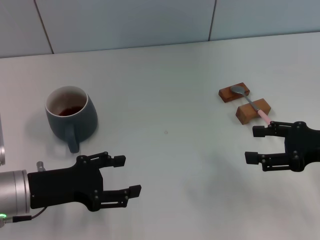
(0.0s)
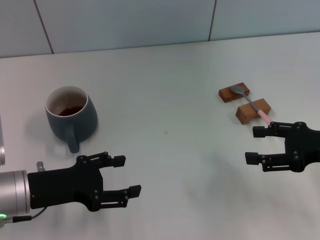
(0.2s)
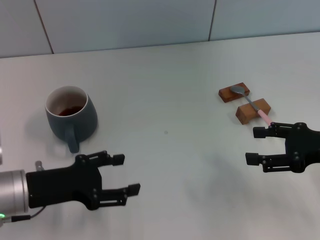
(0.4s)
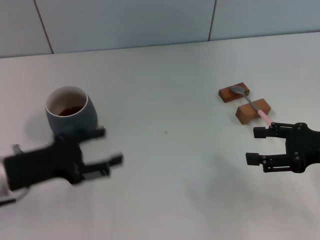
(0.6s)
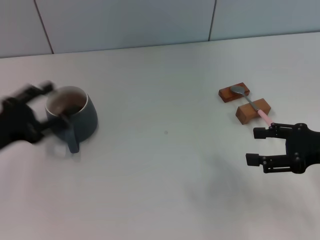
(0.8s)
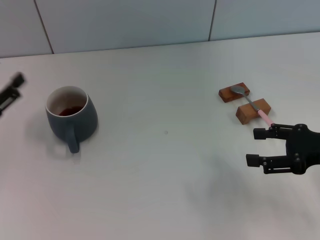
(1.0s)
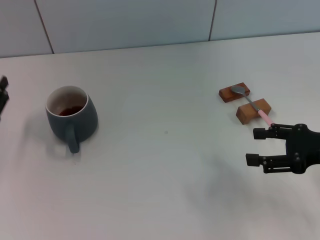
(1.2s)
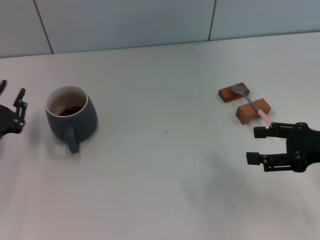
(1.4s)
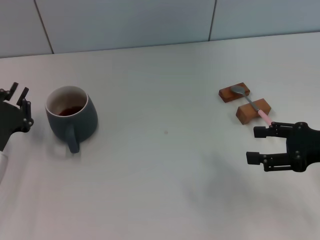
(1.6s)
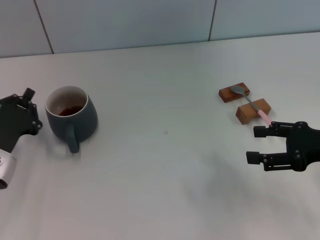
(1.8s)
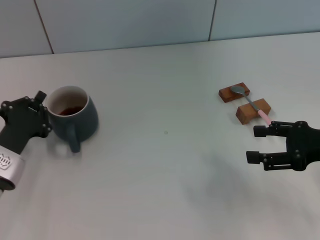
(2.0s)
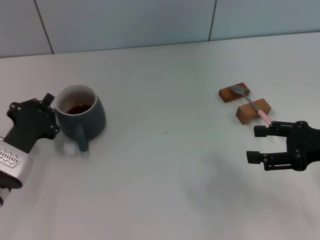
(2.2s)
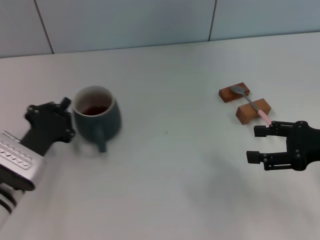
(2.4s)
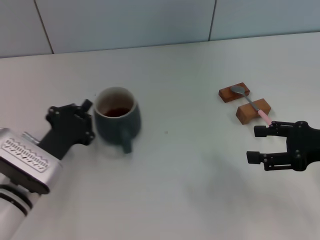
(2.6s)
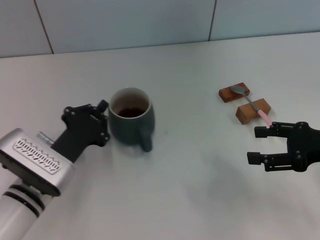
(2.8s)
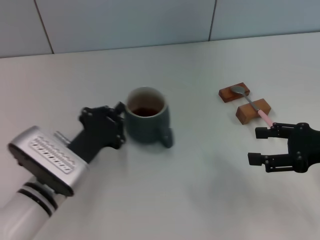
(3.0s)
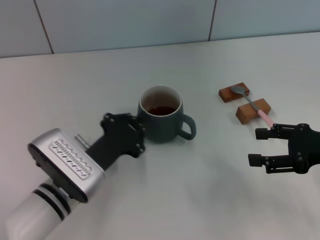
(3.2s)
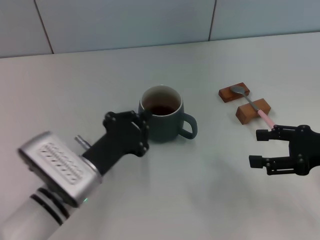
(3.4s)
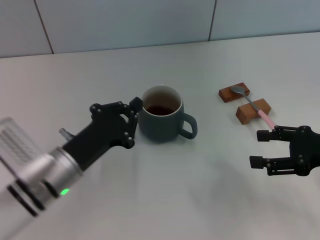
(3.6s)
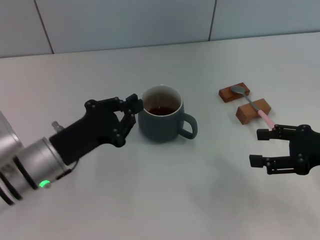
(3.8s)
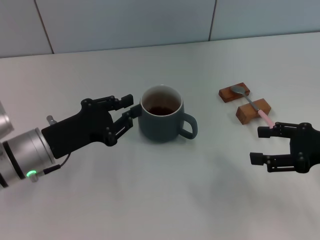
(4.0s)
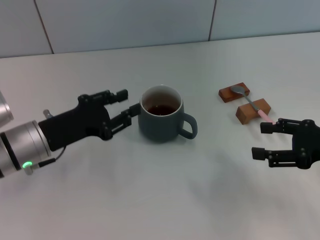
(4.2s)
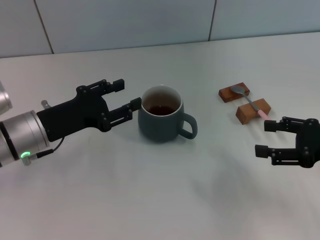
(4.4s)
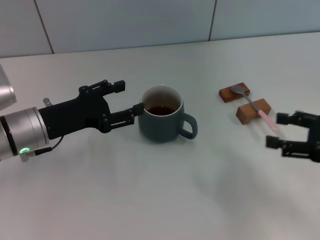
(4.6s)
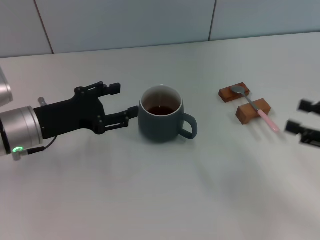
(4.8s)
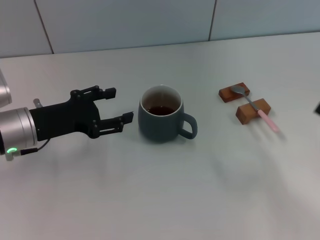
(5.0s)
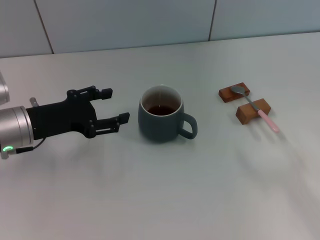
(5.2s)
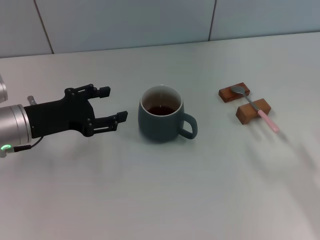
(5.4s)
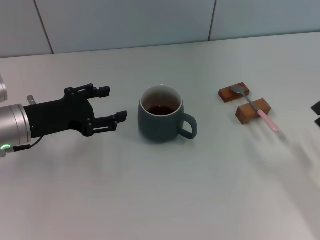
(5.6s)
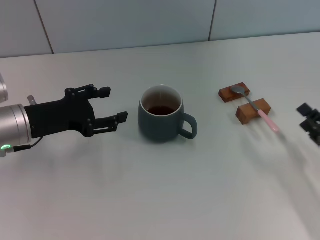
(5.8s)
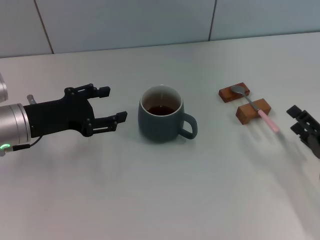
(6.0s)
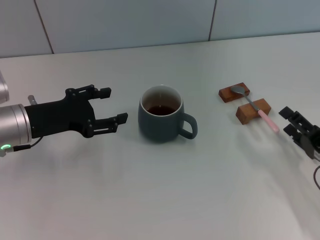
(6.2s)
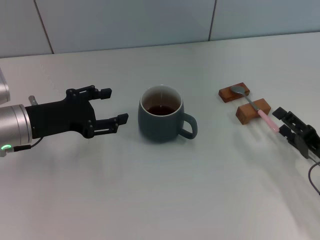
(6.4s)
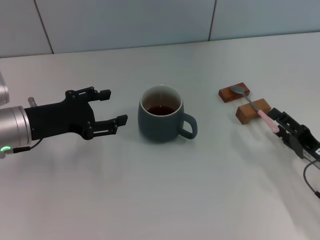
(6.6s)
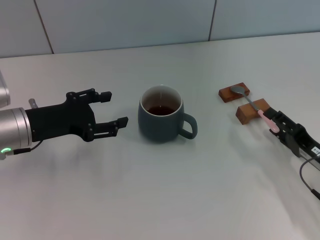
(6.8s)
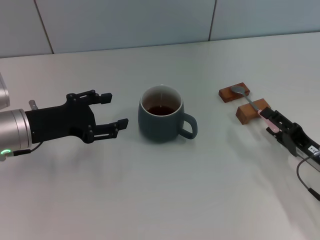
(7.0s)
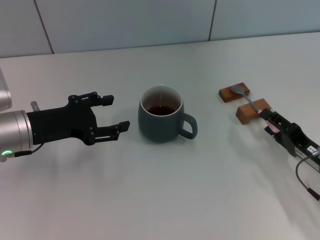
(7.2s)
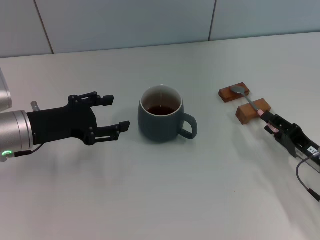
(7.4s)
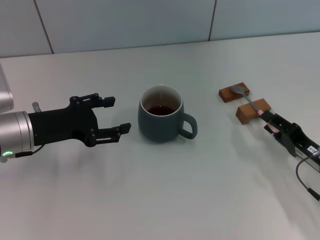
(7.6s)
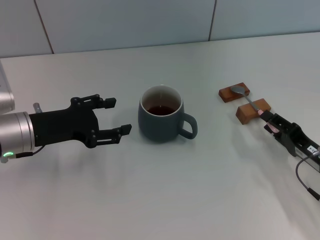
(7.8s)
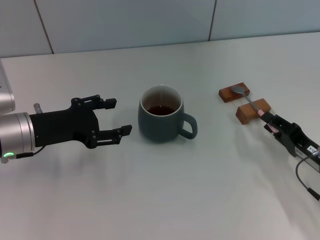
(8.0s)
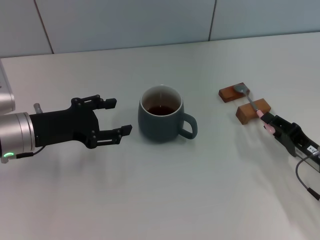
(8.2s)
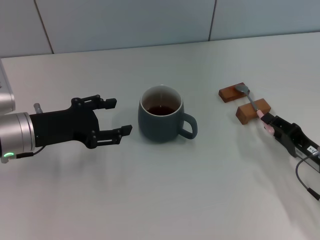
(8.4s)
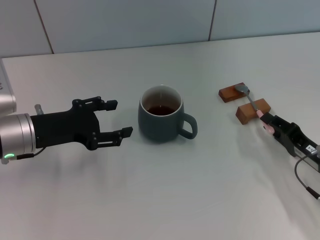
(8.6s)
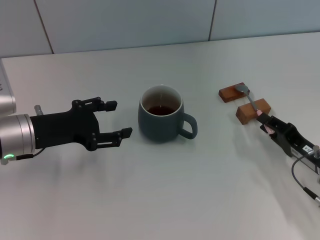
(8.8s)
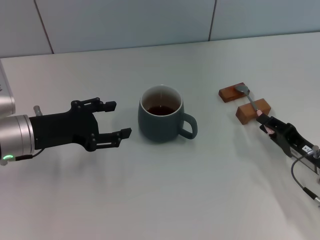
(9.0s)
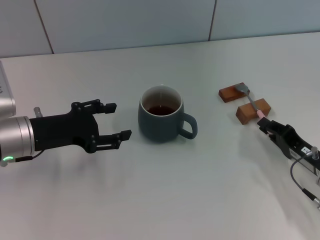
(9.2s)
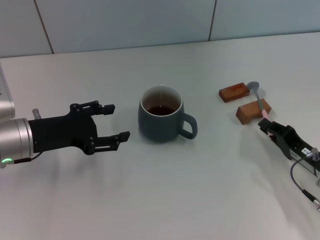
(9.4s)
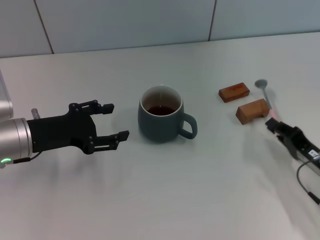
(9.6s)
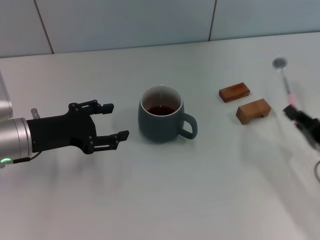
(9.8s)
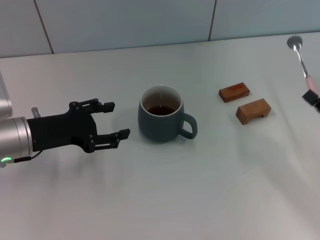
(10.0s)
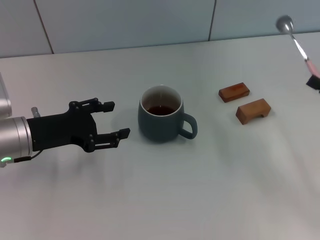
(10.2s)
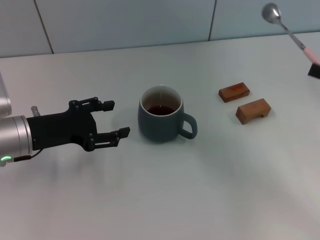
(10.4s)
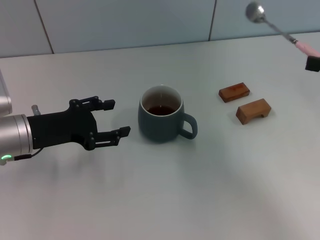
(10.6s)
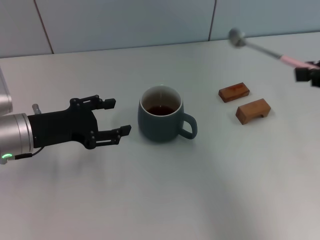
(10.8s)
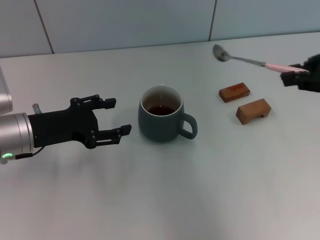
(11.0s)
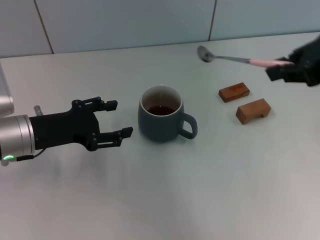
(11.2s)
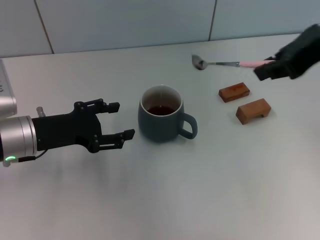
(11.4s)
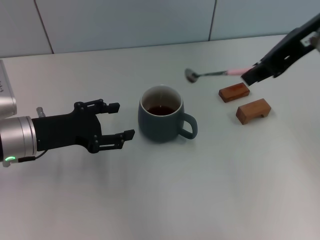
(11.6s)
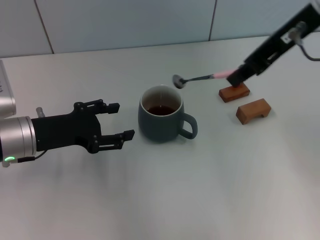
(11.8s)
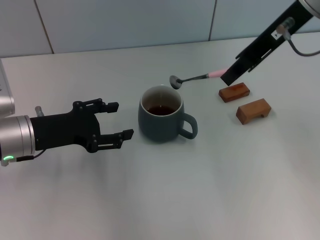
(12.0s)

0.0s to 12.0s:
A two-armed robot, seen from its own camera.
Task of the whole recording: Move the grey cup to the center, lift the pink spoon, stir it three times in the cup, and put the spoon into the cup.
Step, 0.0s to 5.0s: Move the cup with coffee to the center of view with the left gripper.
Step, 5.2s to 9.6s: Pick up the spoon with the right gripper.
0.0s to 1.6s: The left gripper is displaced to the left by some 5 cm, and closes its fingers.
1.6s to 3.0s: The left gripper shifts about 10 cm to the right, and closes its fingers.
3.0s to 4.4s: The left gripper heads upward, forward and to the left, covering about 10 cm, and opens its fingers.
4.4s to 6.0s: The right gripper shifts approximately 10 cm downward.
6.0s to 7.6s: There are only small adjustments of the grippers.
7.6s to 9.0s: The two grippers keep their place.
9.0s to 10.4s: The right gripper goes about 15 cm upward and to the right, and closes up.
10.4s to 12.0s: The right gripper goes roughly 25 cm to the left, upward and forward.

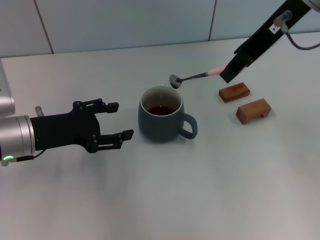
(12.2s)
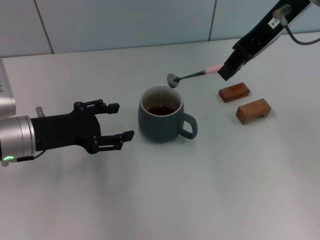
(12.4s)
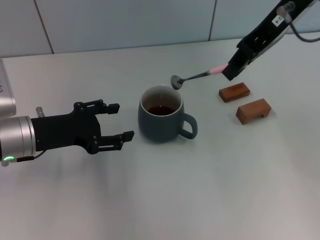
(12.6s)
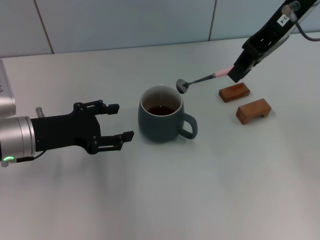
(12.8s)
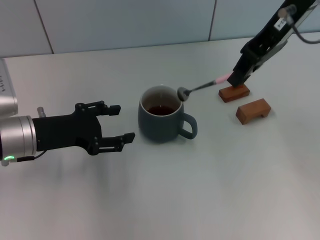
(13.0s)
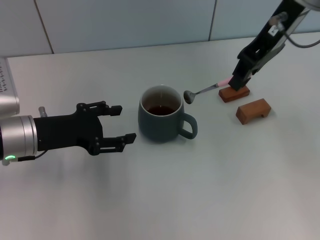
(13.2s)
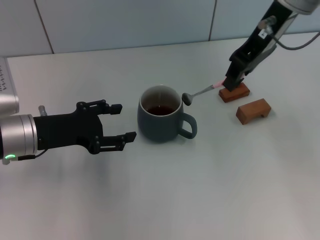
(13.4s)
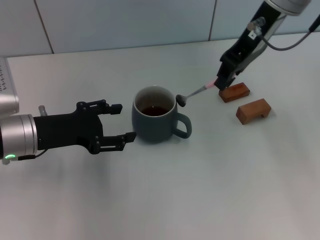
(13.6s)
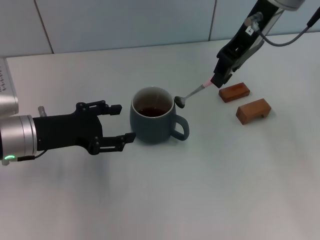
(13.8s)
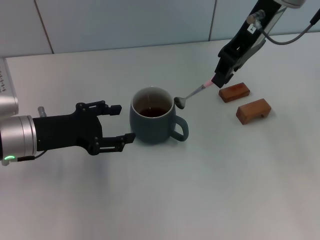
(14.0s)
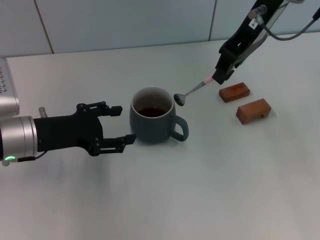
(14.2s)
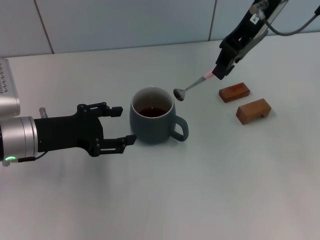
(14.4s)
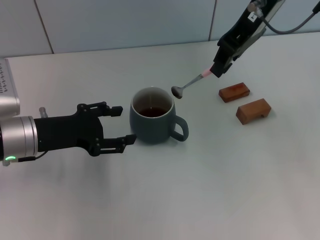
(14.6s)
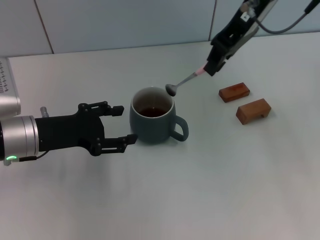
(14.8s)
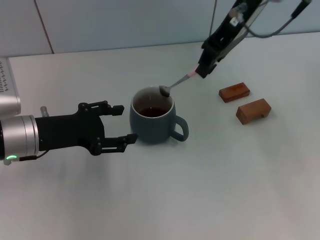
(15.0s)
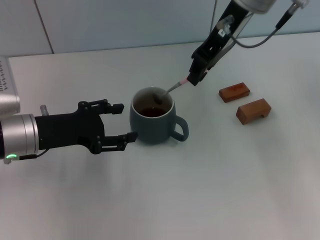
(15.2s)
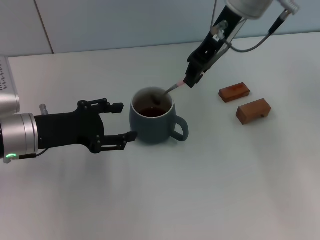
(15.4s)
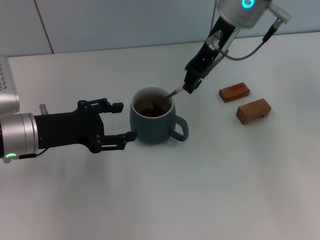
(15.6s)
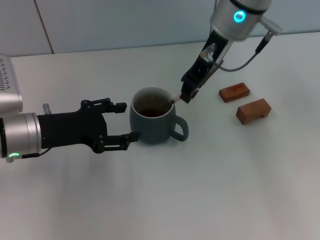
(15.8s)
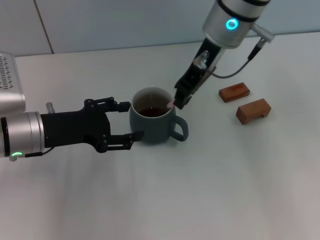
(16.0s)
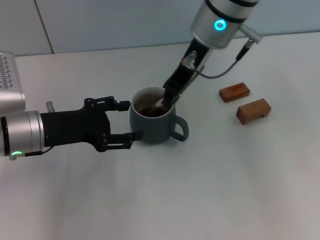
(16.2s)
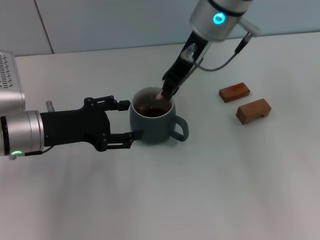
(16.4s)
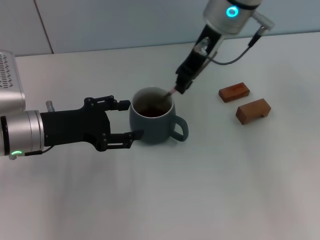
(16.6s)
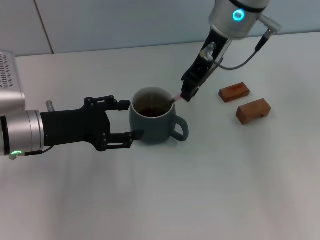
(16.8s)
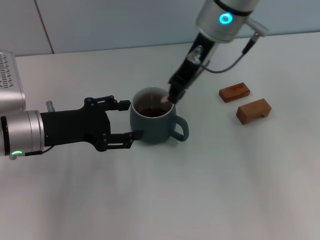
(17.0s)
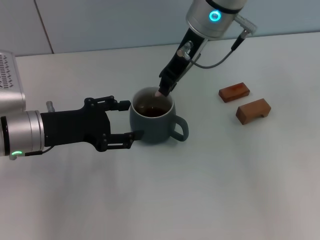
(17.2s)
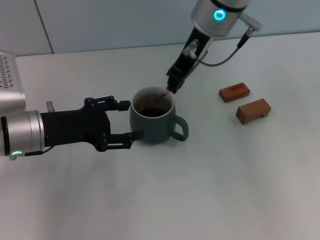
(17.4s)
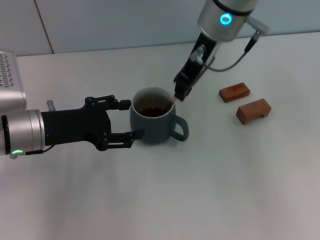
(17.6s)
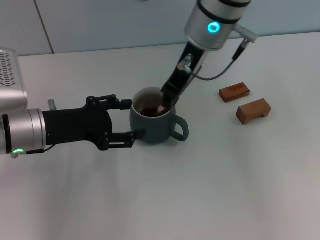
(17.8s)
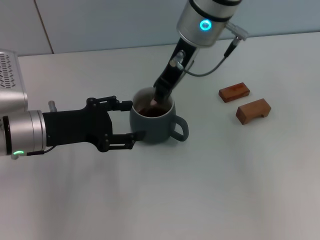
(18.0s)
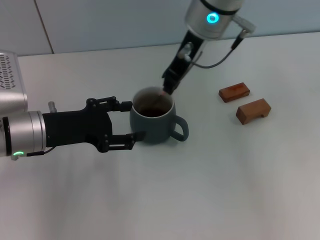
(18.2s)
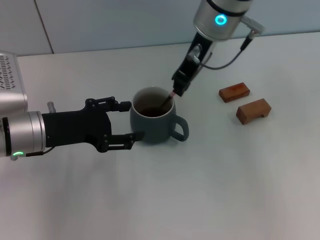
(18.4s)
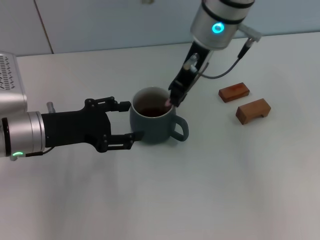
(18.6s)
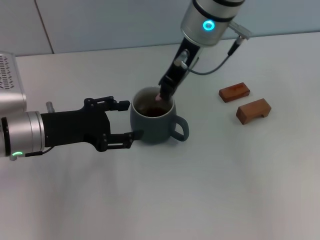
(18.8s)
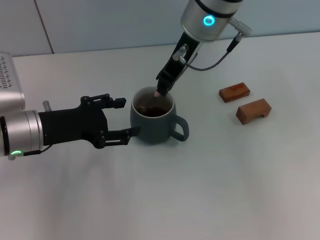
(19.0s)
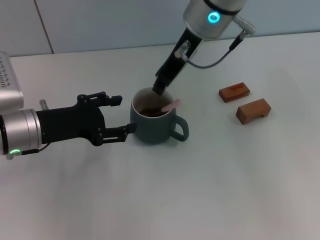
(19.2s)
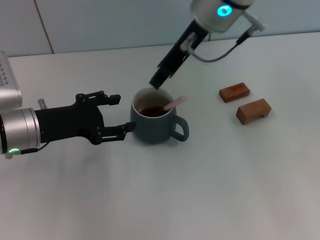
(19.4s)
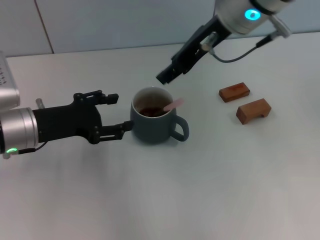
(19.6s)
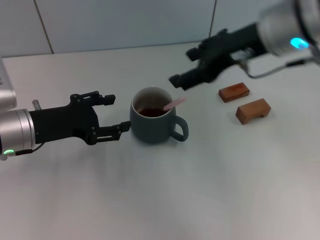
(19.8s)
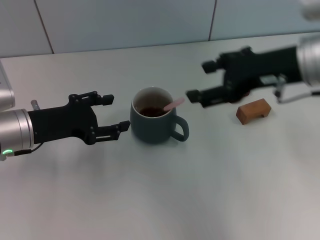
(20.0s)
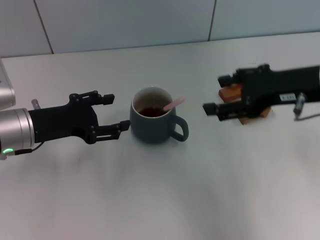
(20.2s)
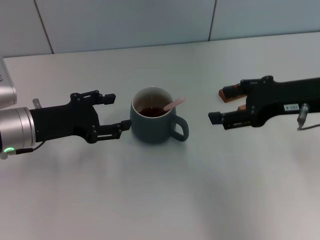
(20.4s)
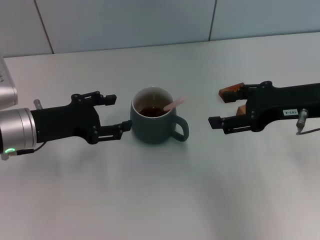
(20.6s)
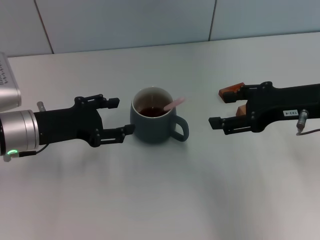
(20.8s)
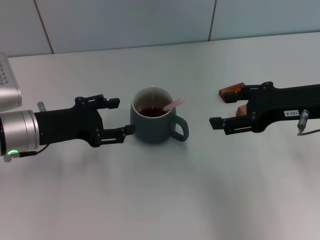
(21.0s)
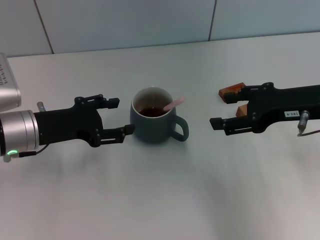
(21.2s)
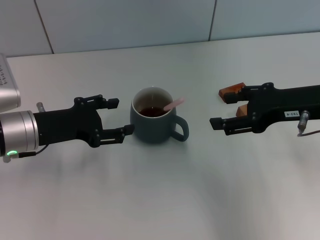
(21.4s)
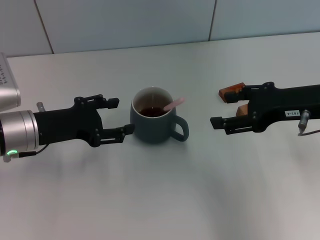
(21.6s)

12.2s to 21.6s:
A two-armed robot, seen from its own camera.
Task of the whole recording: Move the grey cup to the center, lift the pink spoon, stir it three times in the cup, and put the spoon into the cup.
Step, 12.2s to 19.4s: Stir the coffee in the cup with the right gripper.
12.2s to 13.8s: There are only small adjustments of the grippers.
13.8s to 15.4s: The grippers make only small movements.
15.4s to 17.0s: The grippers move only a little.
17.0s to 18.4s: The grippers move only a little.
18.4s to 20.0s: The right gripper shifts about 15 cm to the right and backward, and opens.
20.0s to 21.6s: The right gripper travels downward by about 5 cm.

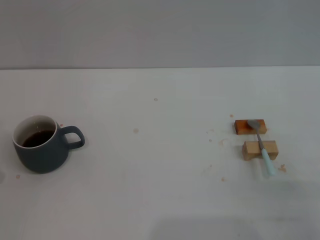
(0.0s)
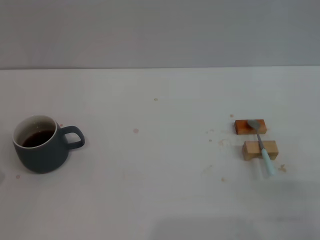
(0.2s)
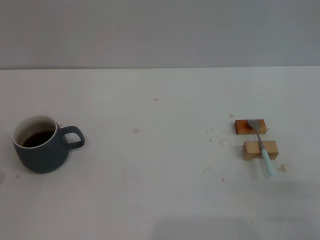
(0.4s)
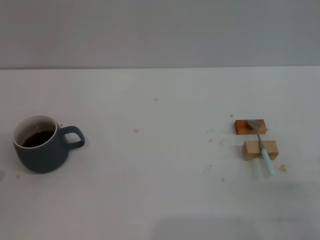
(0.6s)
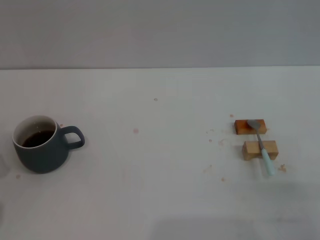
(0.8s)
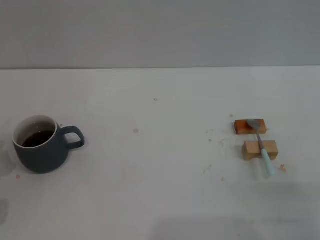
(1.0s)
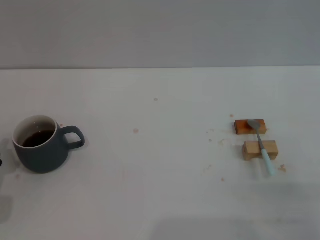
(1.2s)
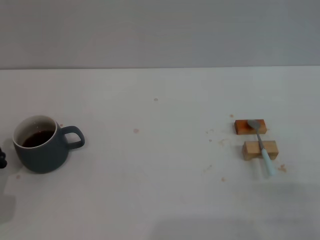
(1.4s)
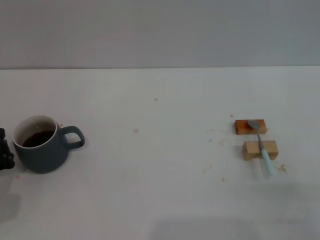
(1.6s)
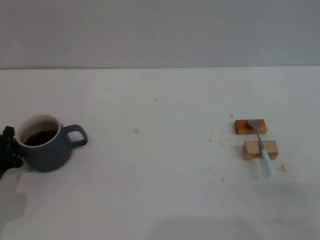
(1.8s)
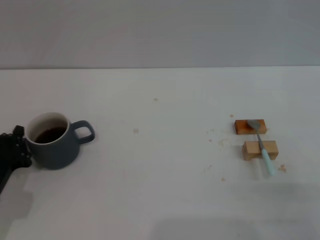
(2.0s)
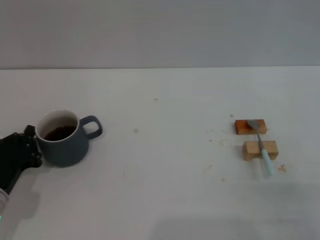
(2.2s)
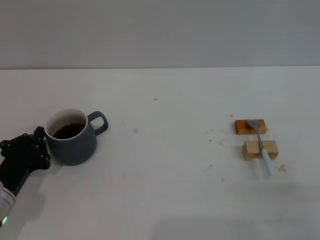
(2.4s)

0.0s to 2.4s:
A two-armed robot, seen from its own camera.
Task of the whole recording: Move the grey cup to the center, lift the blue spoon, stir it three times in the cup, and put the spoon into the cup.
1.2s to 2.4s: The grippers move only a little.
